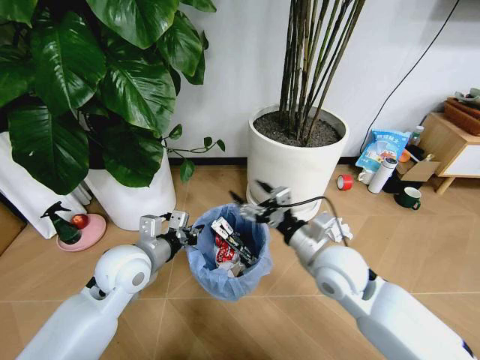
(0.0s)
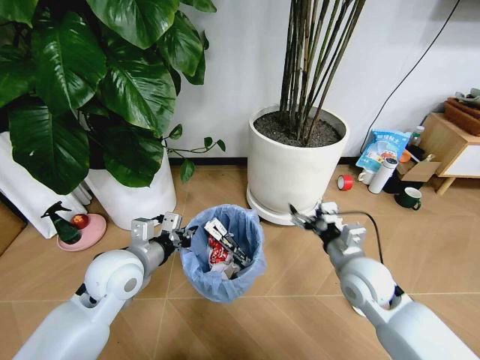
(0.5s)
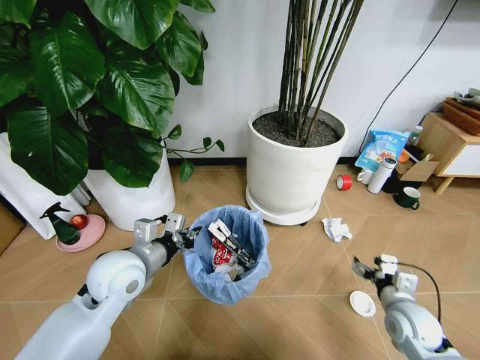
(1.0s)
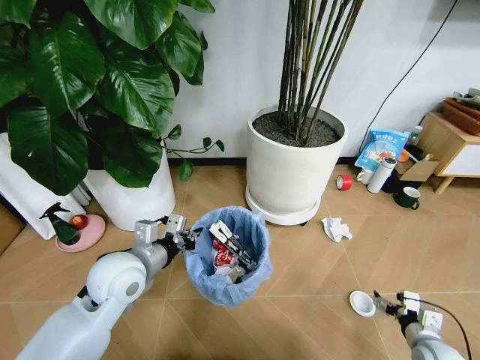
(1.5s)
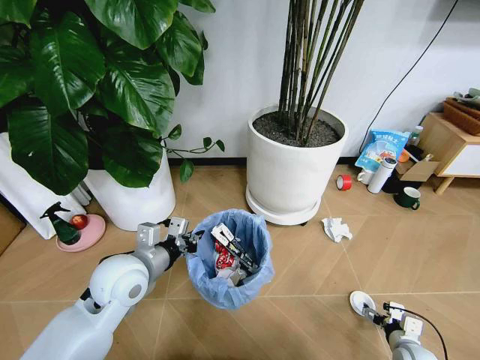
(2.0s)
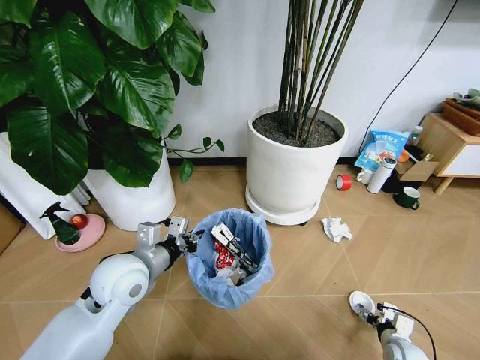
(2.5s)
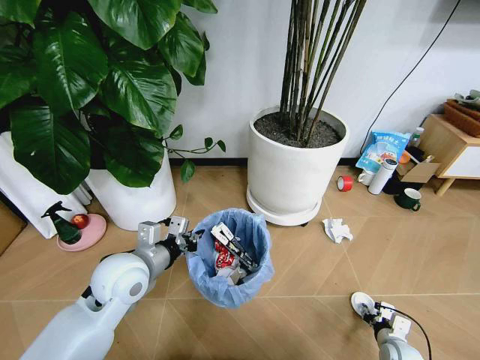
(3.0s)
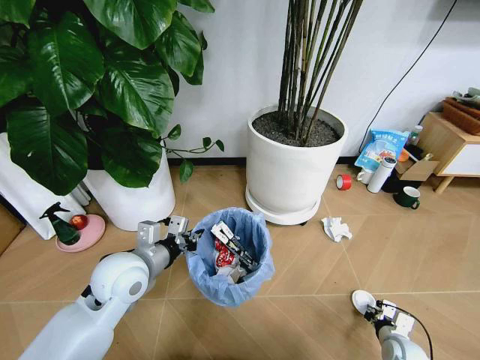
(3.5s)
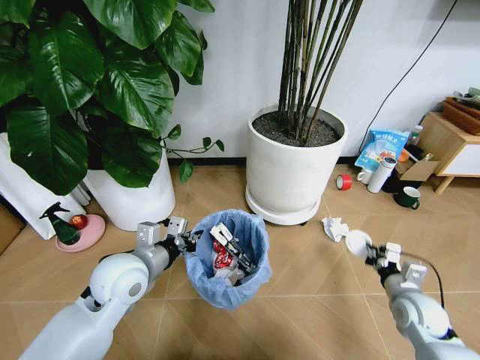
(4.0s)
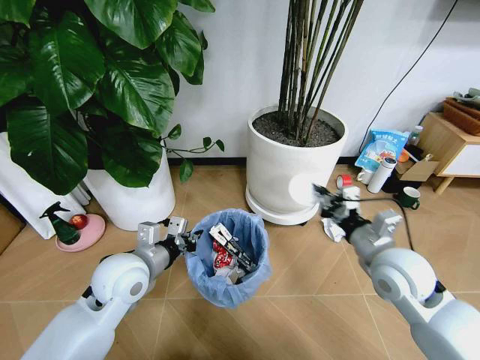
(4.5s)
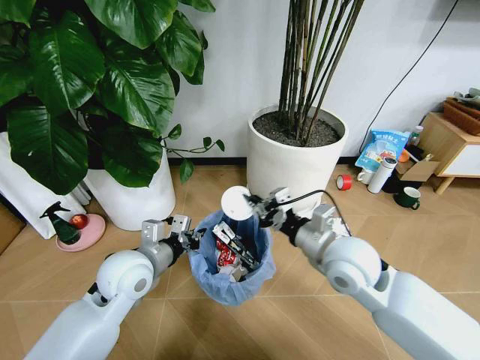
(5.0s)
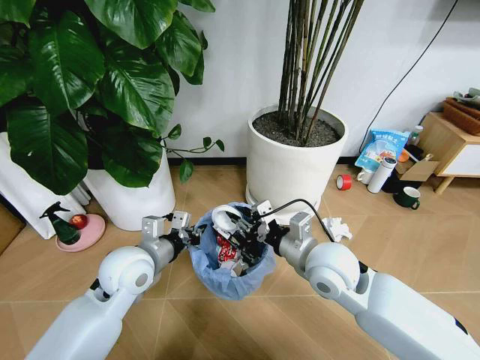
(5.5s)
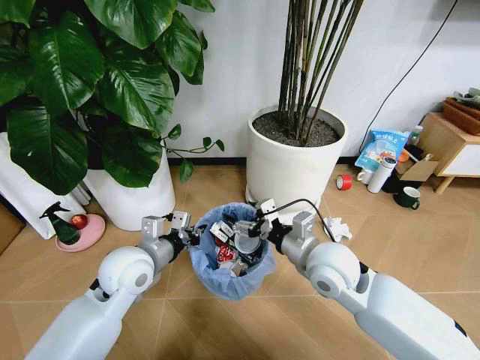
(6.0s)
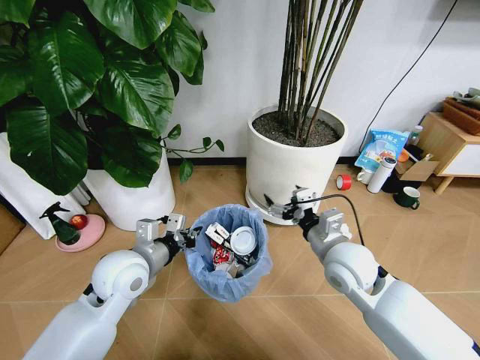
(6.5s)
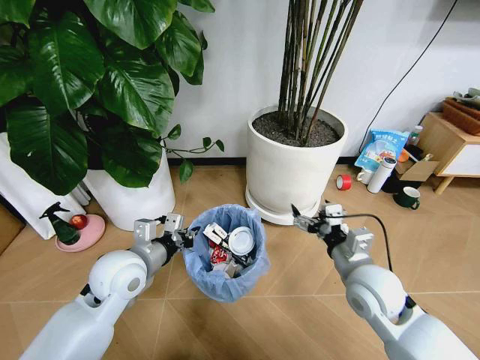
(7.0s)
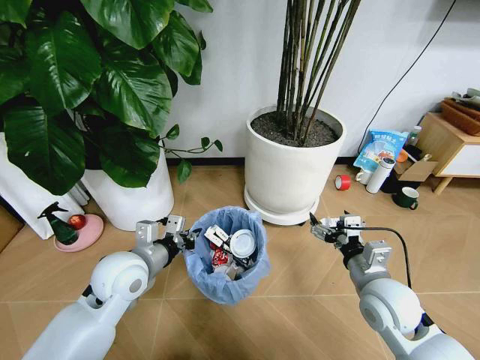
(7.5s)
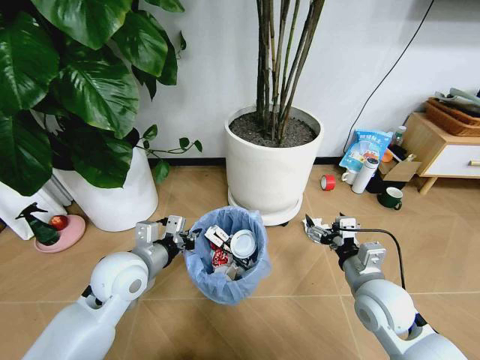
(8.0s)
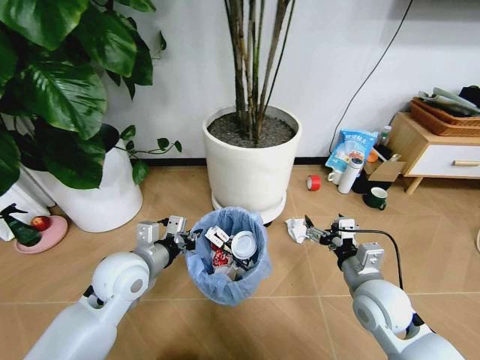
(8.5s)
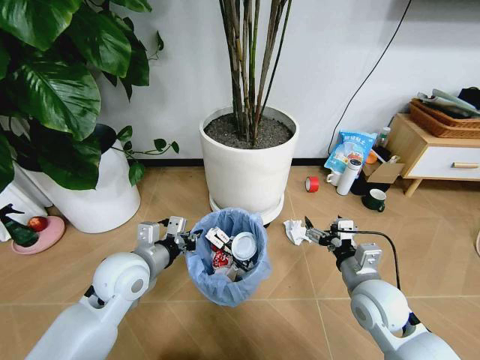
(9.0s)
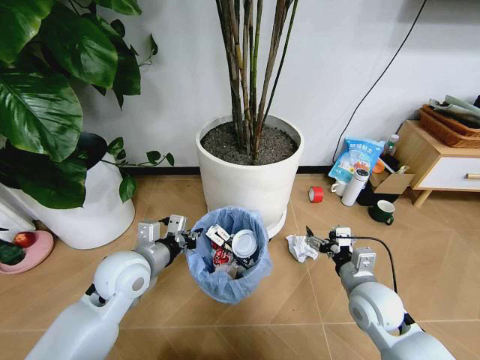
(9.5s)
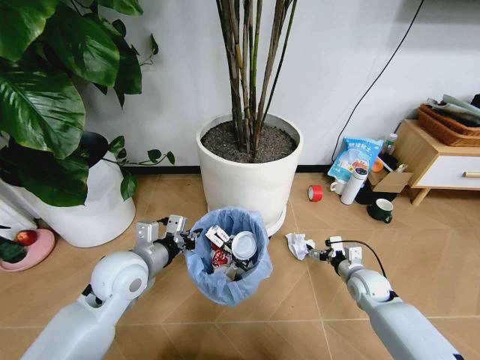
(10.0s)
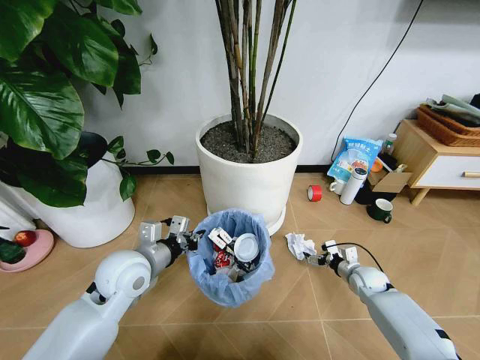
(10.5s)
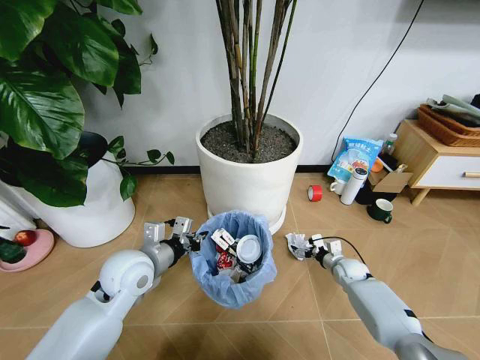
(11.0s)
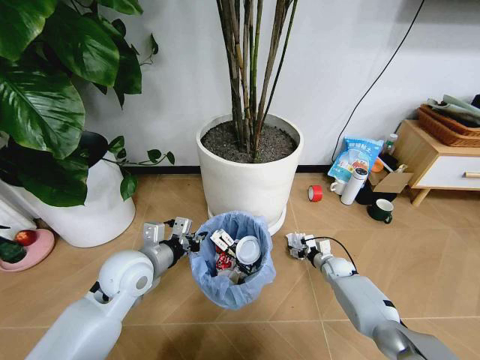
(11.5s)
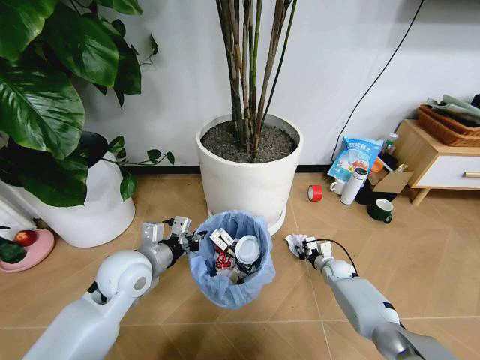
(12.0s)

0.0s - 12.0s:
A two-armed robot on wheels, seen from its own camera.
Task of the whole recording: Pick up the trash bin and place the garbage on the floor into it.
0.0s - 2.0s: The right gripper is displaced downward, to the right and backward by roughly 40 cm.
2.0s - 4.0s: The right gripper is displaced upward and forward by some 15 cm, and closes up.
4.0s - 6.0s: The right gripper goes about 30 cm to the left and upward, and opens its fingers.
6.0s - 8.0s: The right gripper moves to the right, downward and backward, some 15 cm.
8.0s - 10.0s: The right gripper travels downward, forward and to the right by some 20 cm.
10.0s - 12.0s: The right gripper is displaced downward and forward by roughly 15 cm, and closes.

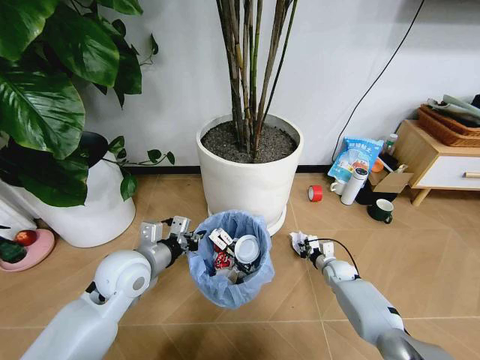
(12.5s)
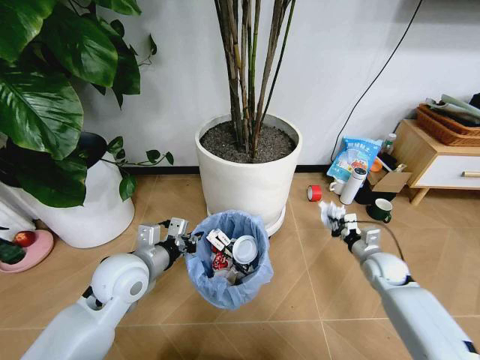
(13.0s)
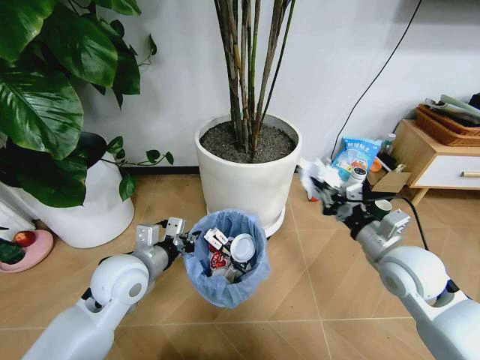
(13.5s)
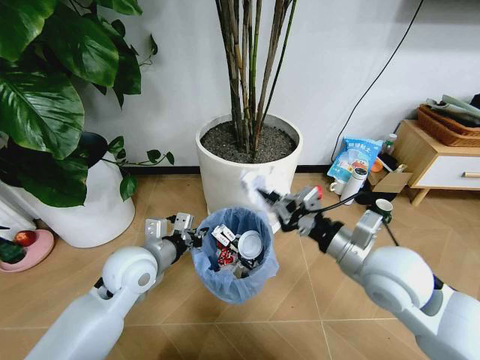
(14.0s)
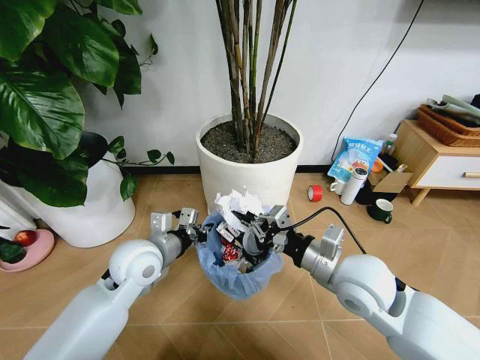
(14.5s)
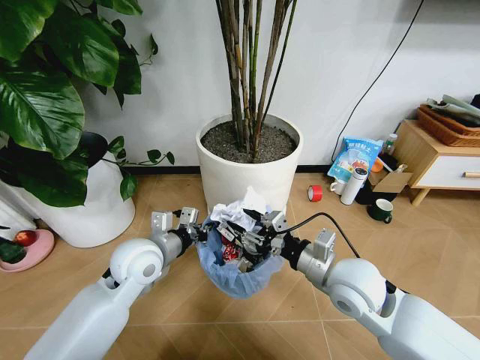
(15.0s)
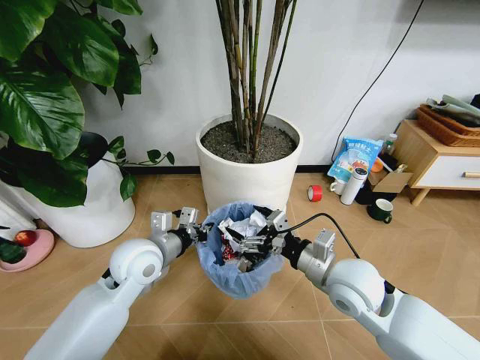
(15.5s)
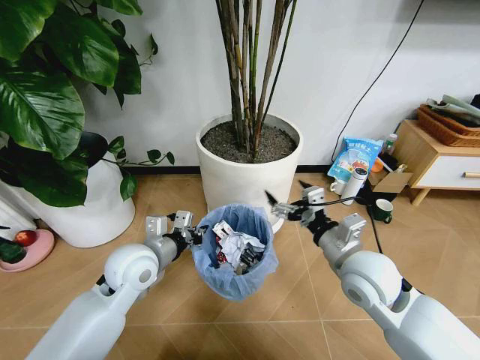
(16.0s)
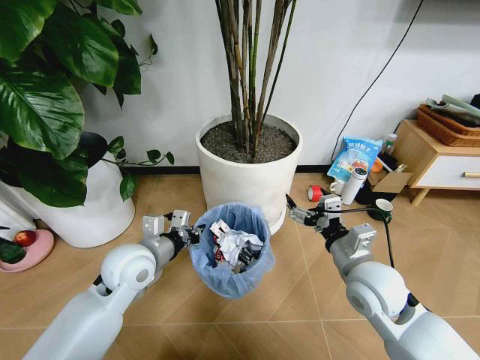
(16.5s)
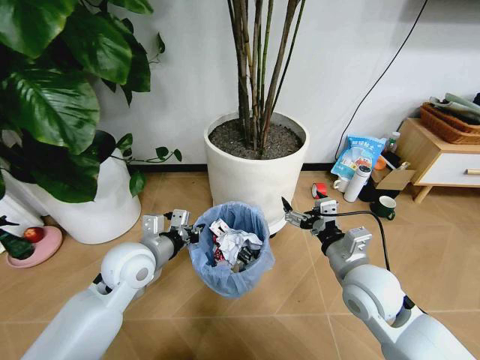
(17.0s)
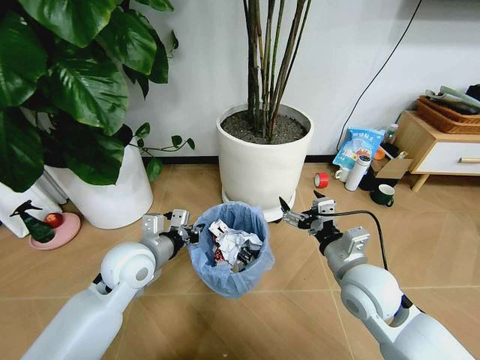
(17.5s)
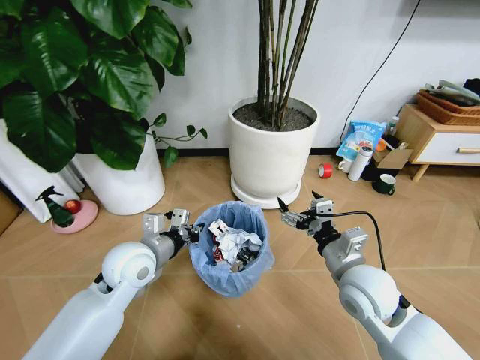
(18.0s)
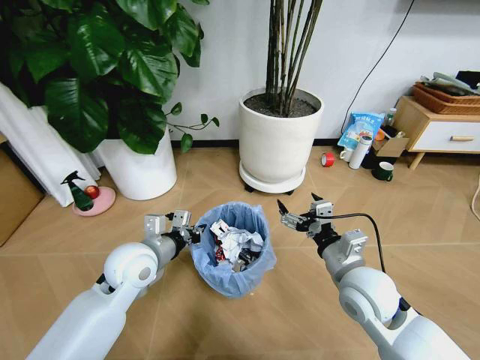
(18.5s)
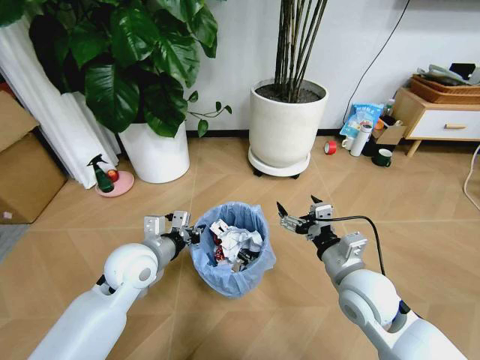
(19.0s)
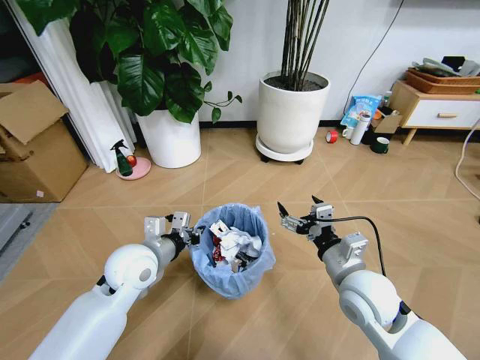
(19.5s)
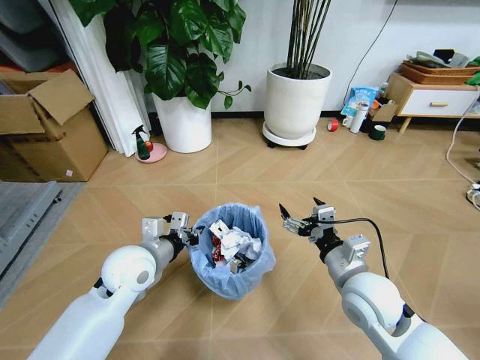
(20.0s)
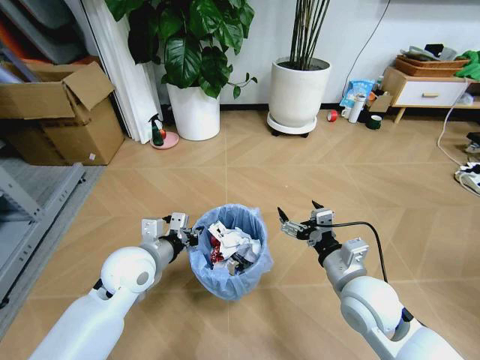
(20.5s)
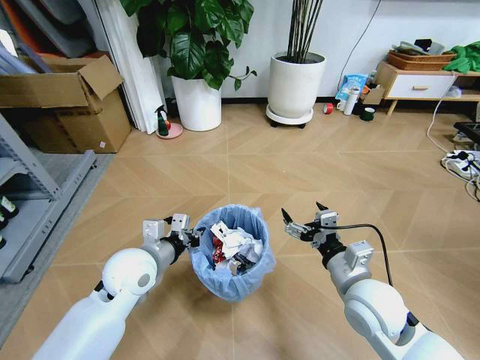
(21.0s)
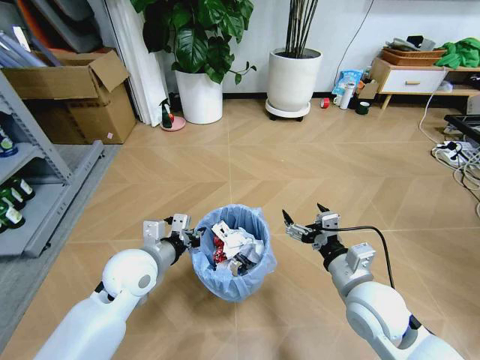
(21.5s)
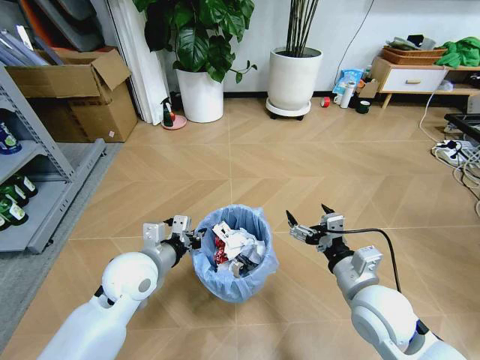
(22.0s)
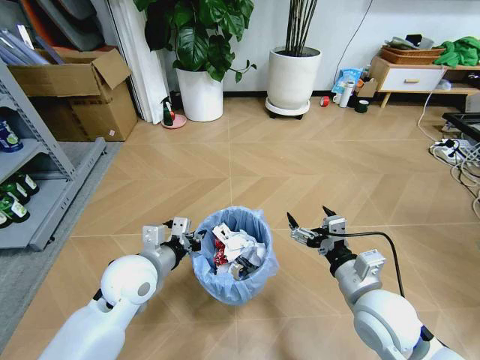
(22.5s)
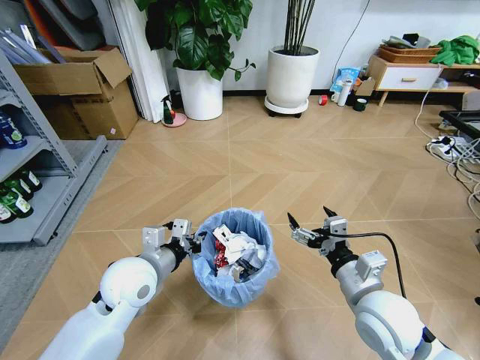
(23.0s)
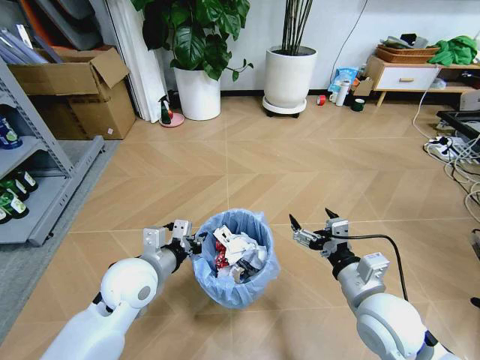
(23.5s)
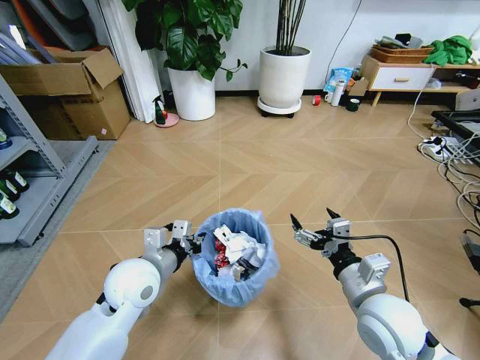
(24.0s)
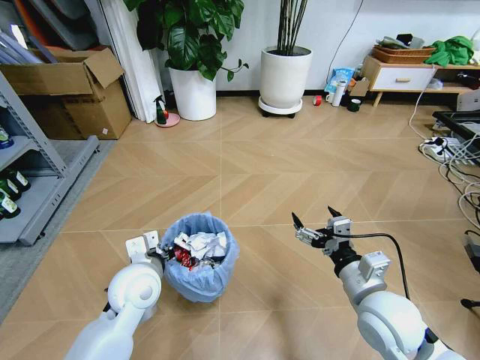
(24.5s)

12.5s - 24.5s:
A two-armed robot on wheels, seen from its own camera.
Task of the whole recording: Pick up the trash bin and place the garbage on the floor into it.
12.5s - 14.5s: The right gripper goes about 35 cm upward and backward.
14.5s - 16.5s: The right gripper opens.

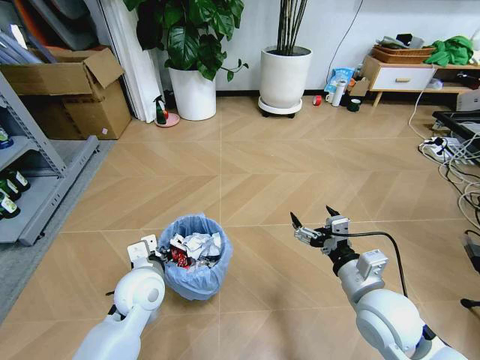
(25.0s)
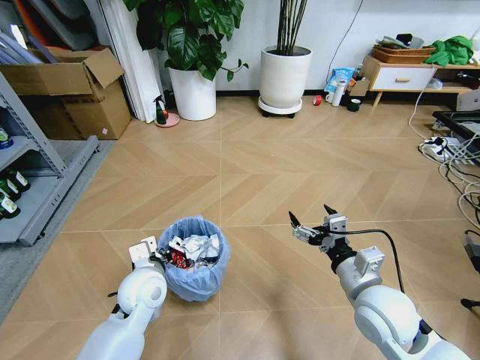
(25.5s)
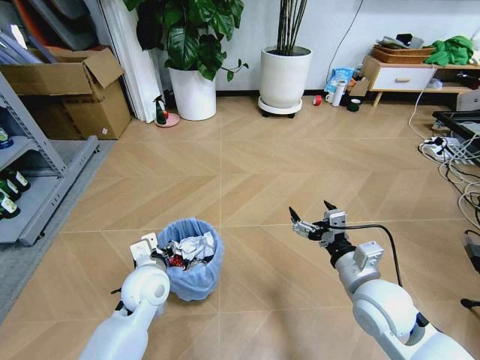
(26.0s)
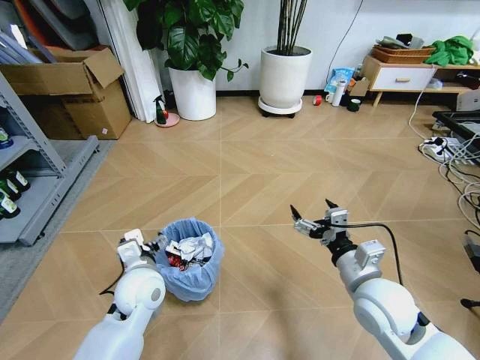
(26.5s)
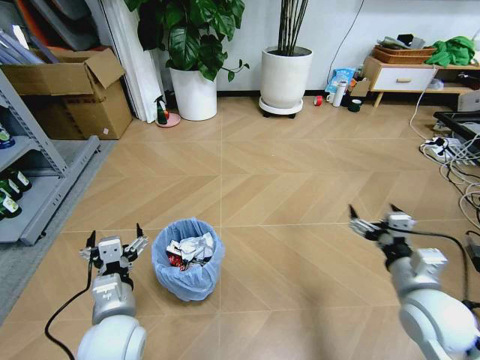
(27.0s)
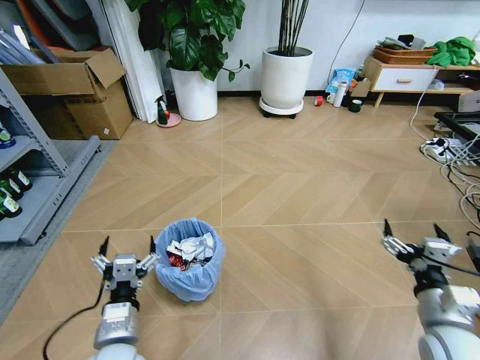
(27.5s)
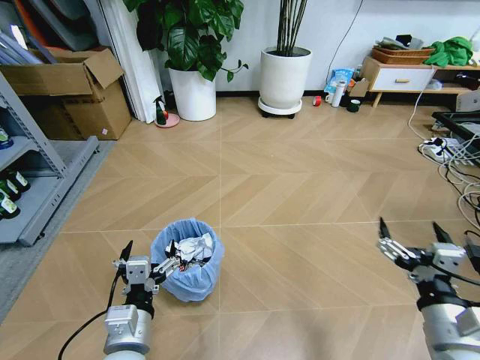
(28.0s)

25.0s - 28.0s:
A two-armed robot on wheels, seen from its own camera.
Task of the whole recording: Pick up the trash bin and place the garbage on the floor into it.
25.0s - 26.5s: The left gripper opens.
26.5s - 28.0s: The left gripper heads backward, covering about 15 cm, while the right gripper is displaced backward and to the right by roughly 15 cm.
